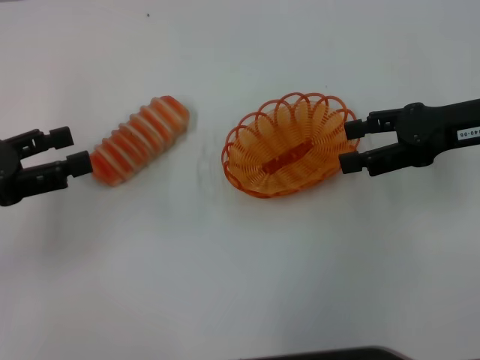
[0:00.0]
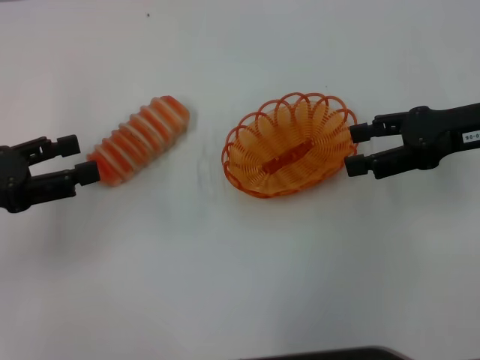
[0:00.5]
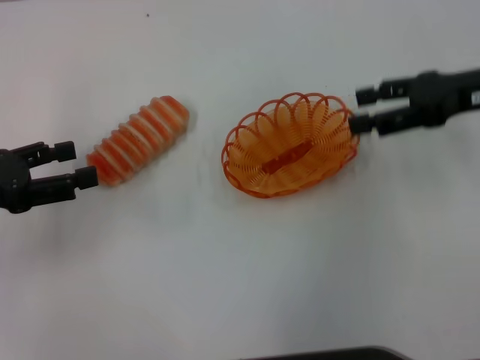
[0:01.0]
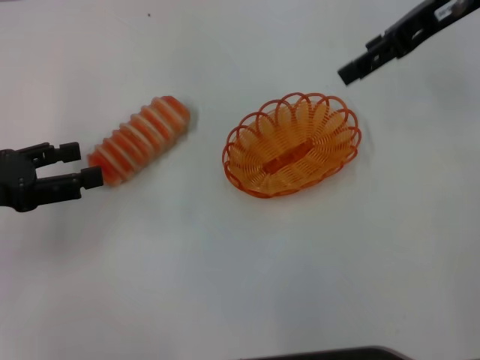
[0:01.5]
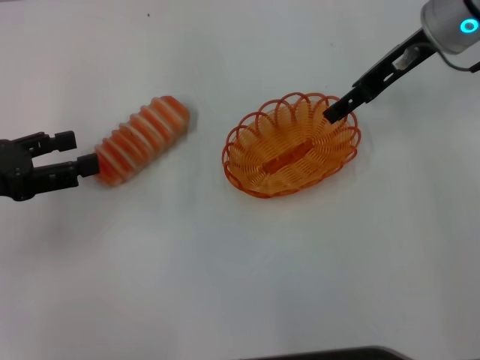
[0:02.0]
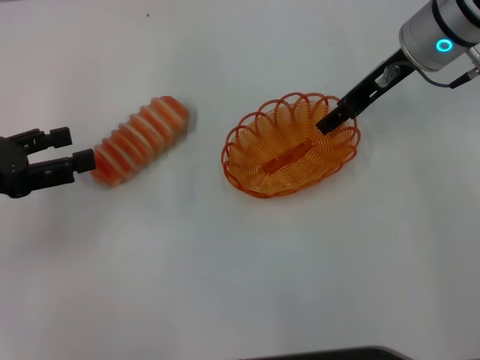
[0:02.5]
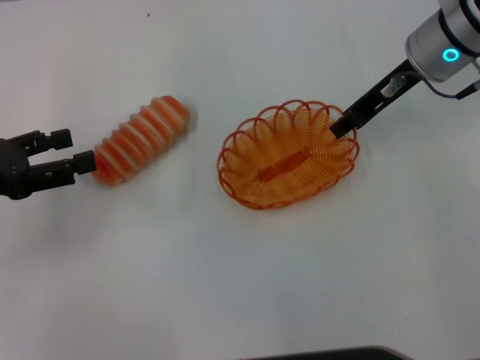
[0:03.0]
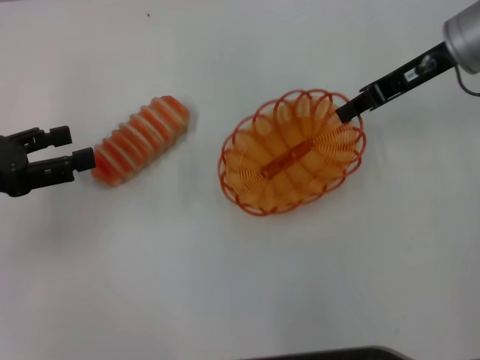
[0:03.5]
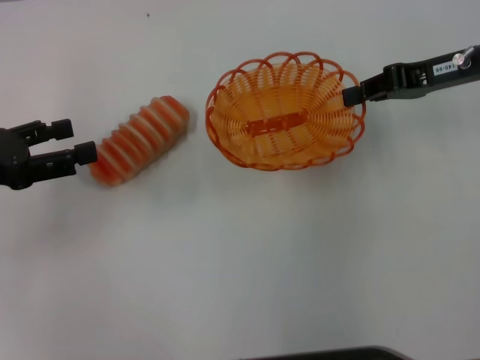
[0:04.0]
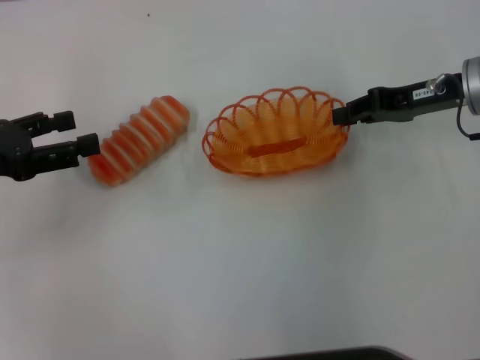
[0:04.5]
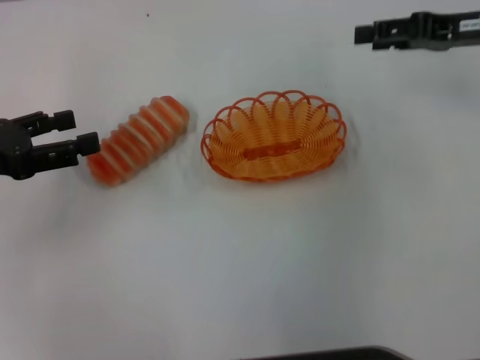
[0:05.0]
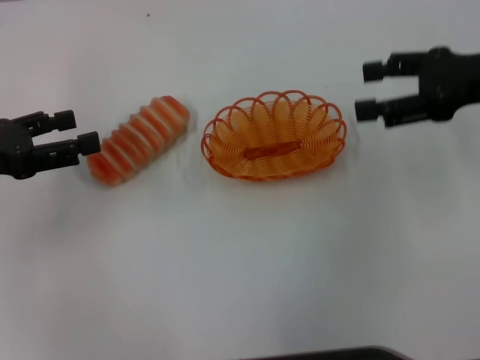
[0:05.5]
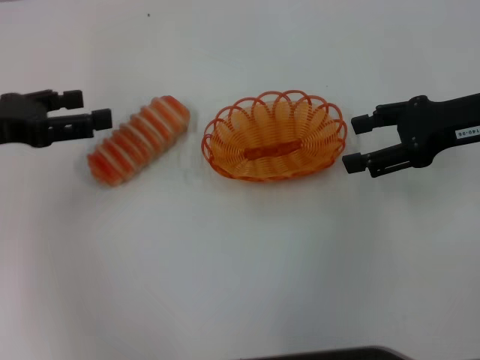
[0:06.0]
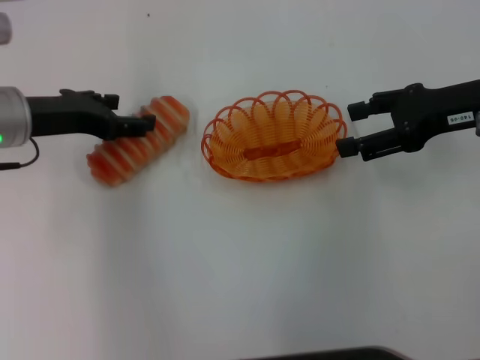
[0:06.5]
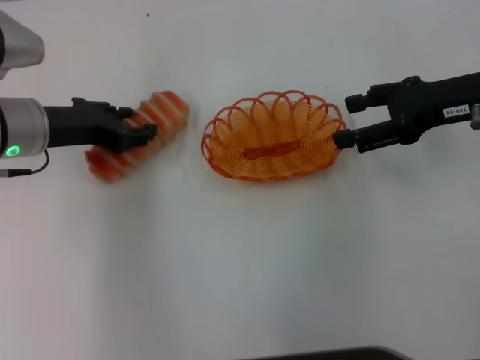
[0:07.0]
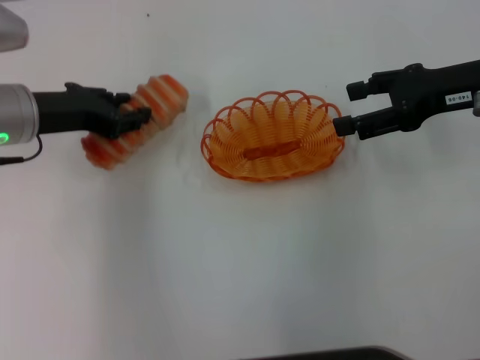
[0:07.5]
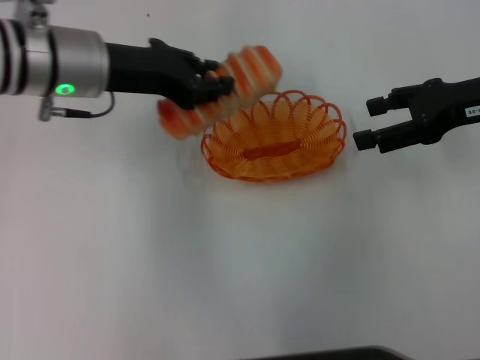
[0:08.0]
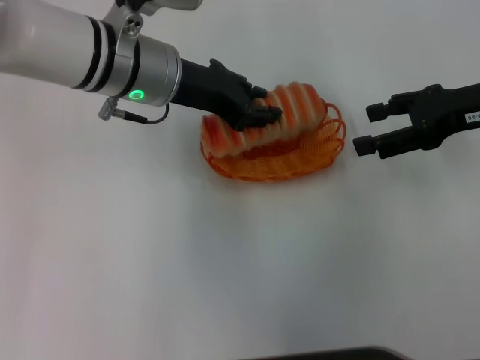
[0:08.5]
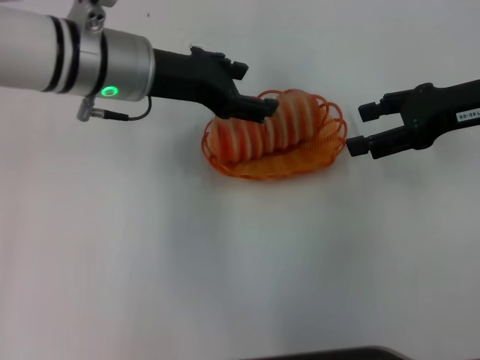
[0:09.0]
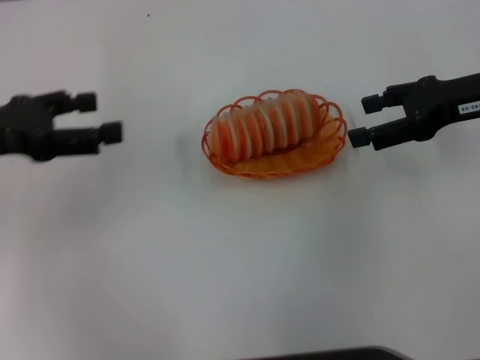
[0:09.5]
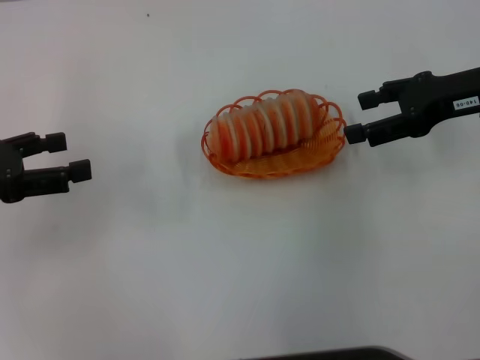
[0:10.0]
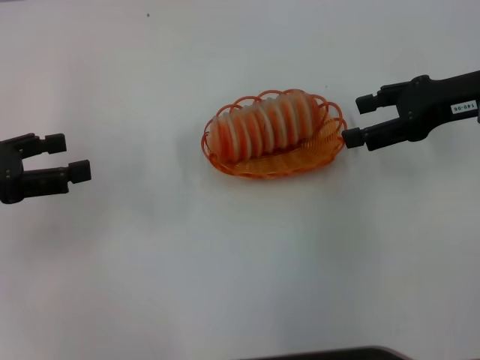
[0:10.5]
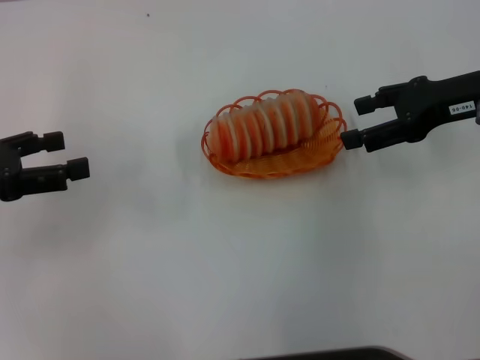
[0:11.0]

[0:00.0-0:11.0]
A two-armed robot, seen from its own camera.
Step, 0:00.0 to 0:03.0: Pick up the basket with the right gripper.
Step, 0:04.0 to 0:06.0: Place the basket in the center of view with the right gripper.
Step, 0:06.5 to 0:07.5: Pick up the long bread with the left gripper.
Step, 0:08.0 to 0:09.0: Place the long bread into the basket with the left gripper.
0:00.0 to 0:02.0: The right gripper is displaced forward and to the left by about 10 cm.
0:02.0 to 0:03.5: The right gripper closes up.
0:03.5 to 0:05.5: The right gripper moves backward and to the right, approximately 10 cm, and opens up.
0:05.5 to 0:07.5: The left gripper goes about 10 cm to the right and forward, and closes up.
0:07.5 to 0:09.0: The left gripper moves to the right, some 10 cm, and opens up.
0:09.0 to 0:11.0: The left gripper shifts roughly 25 cm to the left and backward.

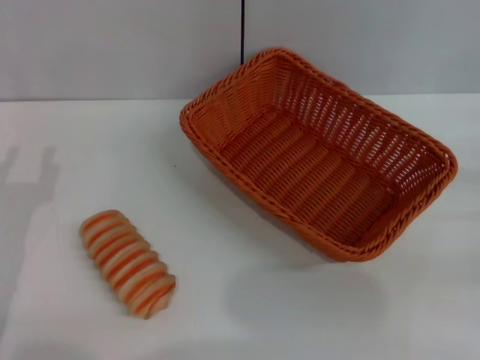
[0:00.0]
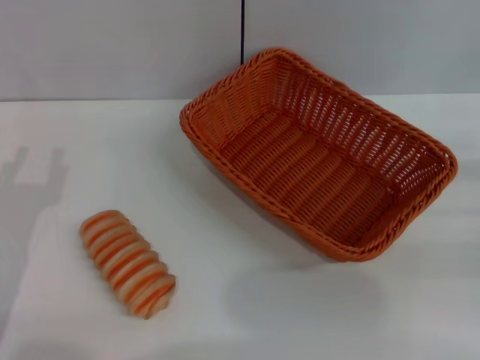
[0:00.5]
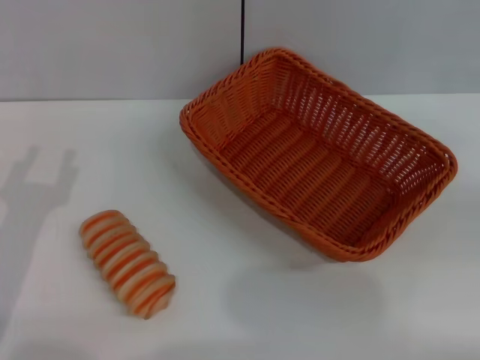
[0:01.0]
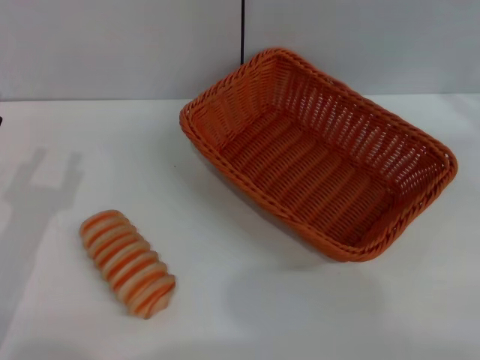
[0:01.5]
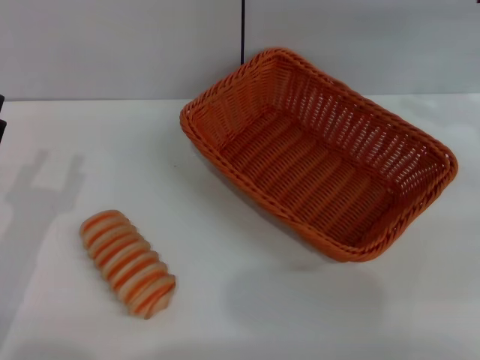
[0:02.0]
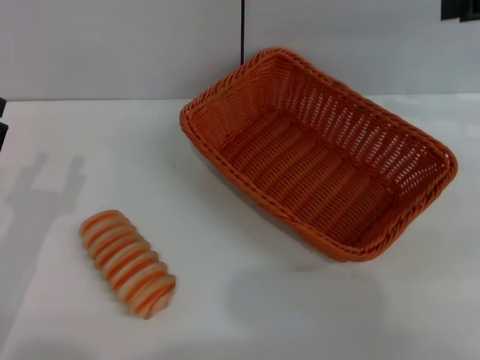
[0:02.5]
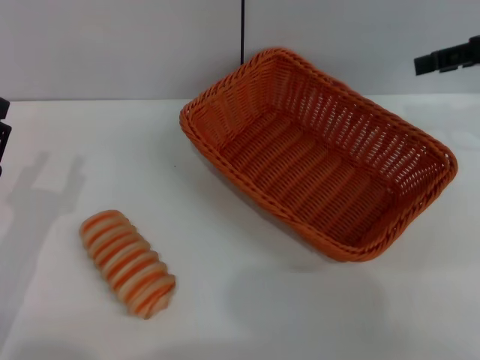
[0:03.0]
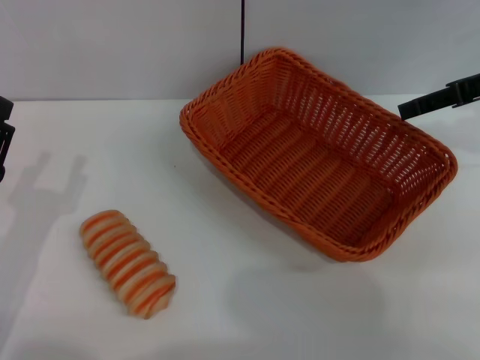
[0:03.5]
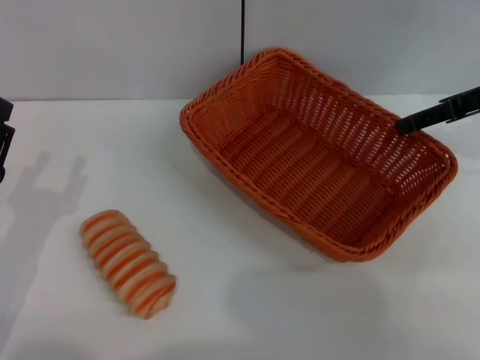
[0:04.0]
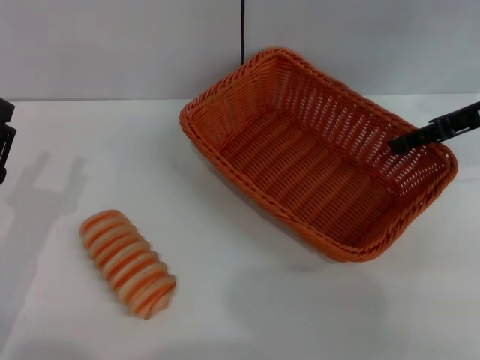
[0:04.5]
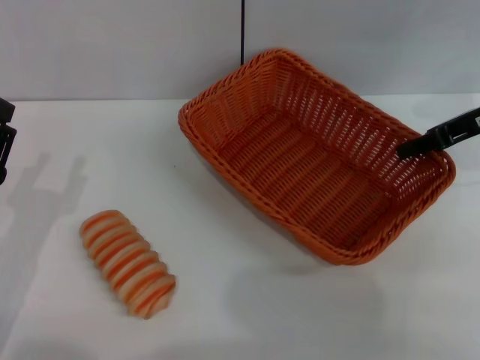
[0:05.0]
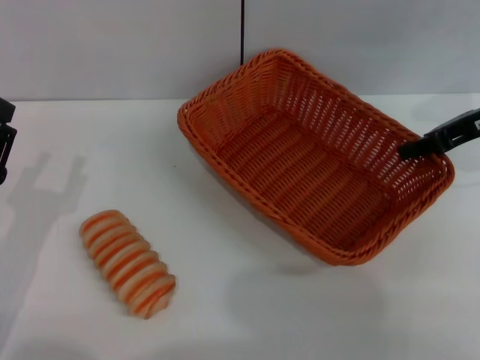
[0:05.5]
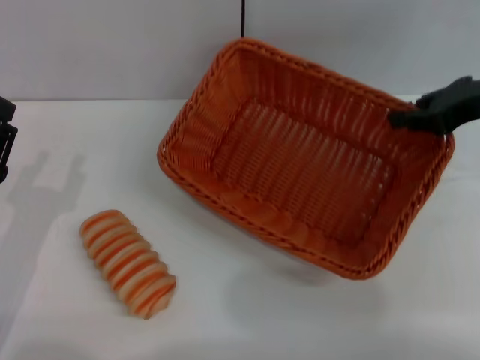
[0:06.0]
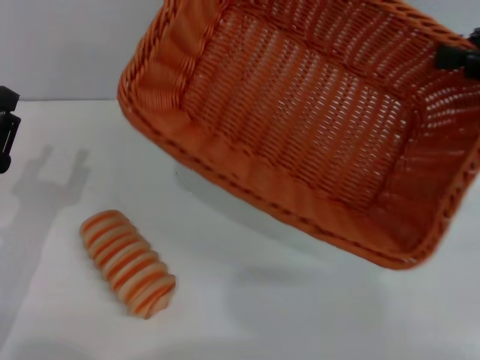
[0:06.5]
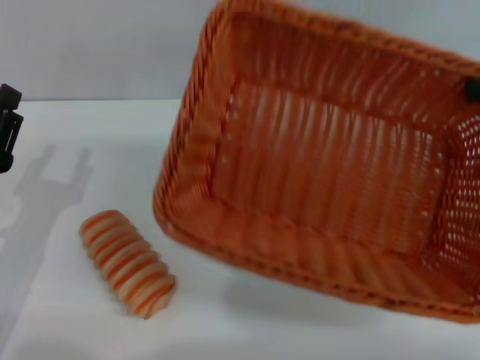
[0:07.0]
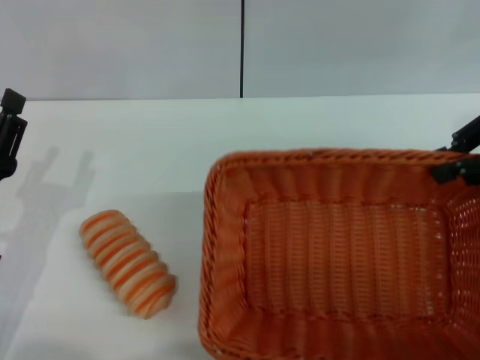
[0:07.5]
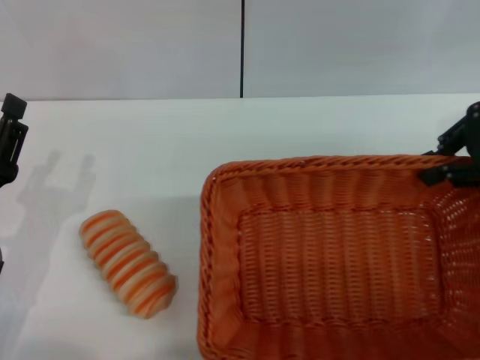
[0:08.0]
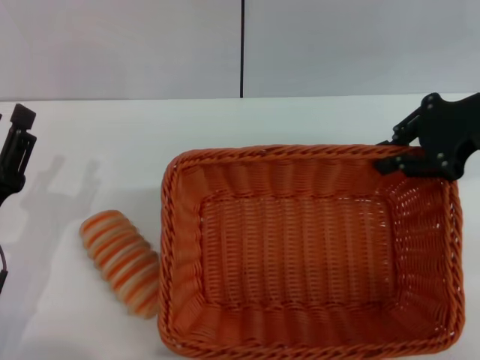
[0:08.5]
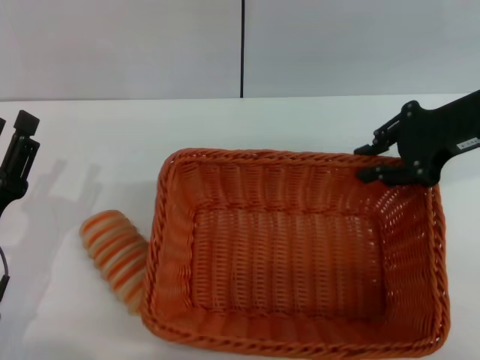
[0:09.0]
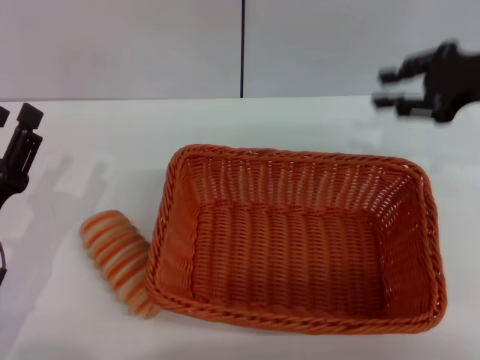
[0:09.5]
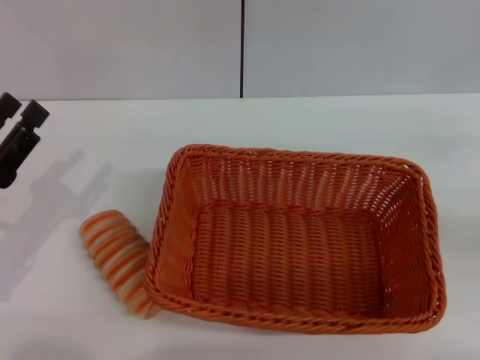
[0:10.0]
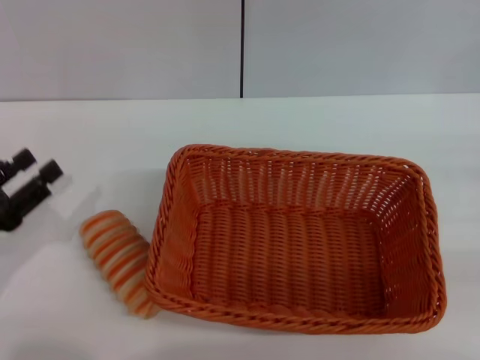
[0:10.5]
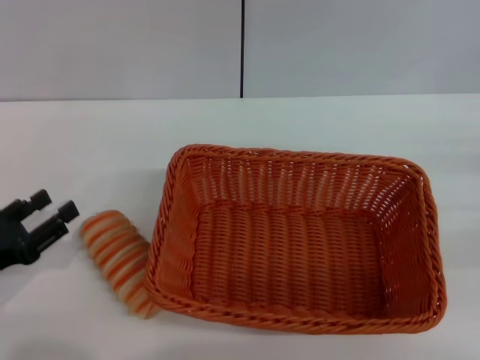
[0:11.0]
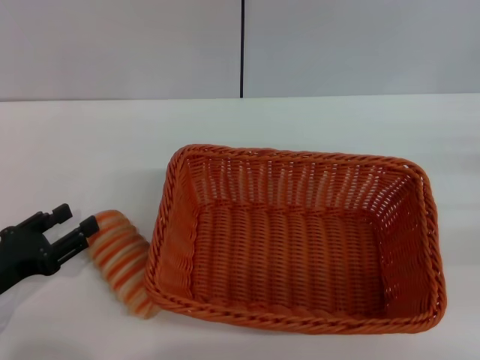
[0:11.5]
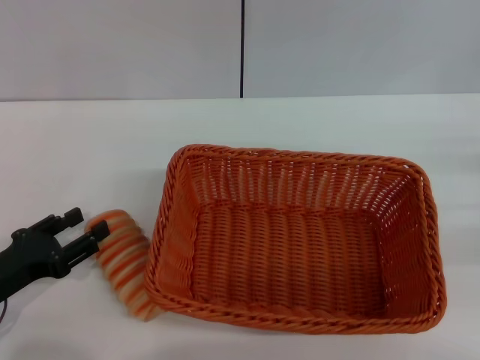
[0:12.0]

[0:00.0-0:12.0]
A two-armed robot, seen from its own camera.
Step, 0:00.0 to 0:06.0: Pick up the light basket with the right gripper.
Step, 0:06.5 to 0:09.5: Place the light basket in the center of view with the right gripper.
0:00.0 to 0:02.0: The right gripper moves upward and forward, approximately 25 cm.
0:02.0 to 0:04.0: The right gripper is displaced downward and to the left by approximately 10 cm, and opens up.
0:04.0 to 0:06.0: The right gripper closes up.
0:08.0 to 0:10.0: The right gripper goes about 15 cm to the right, downward and backward, and opens its fingers.

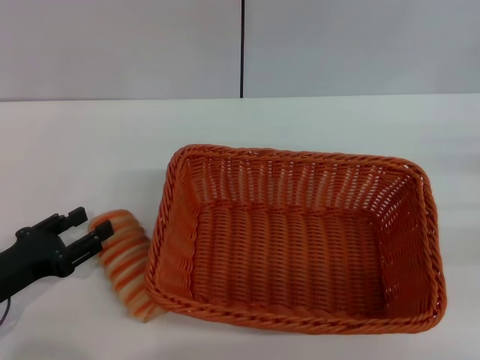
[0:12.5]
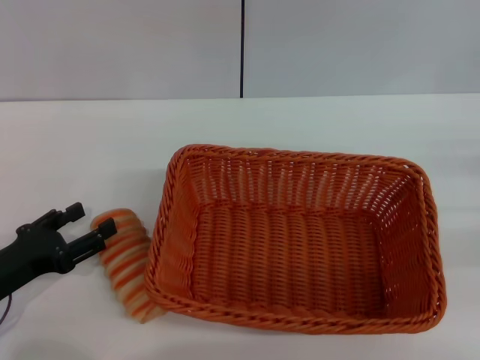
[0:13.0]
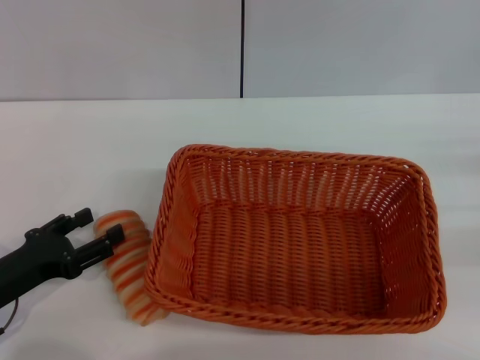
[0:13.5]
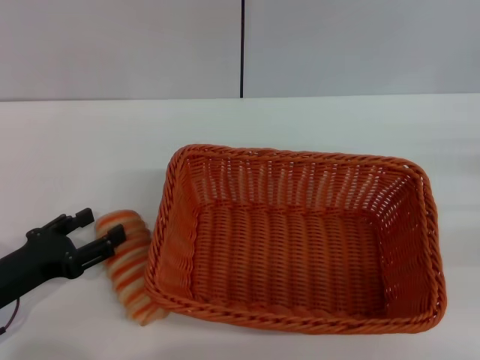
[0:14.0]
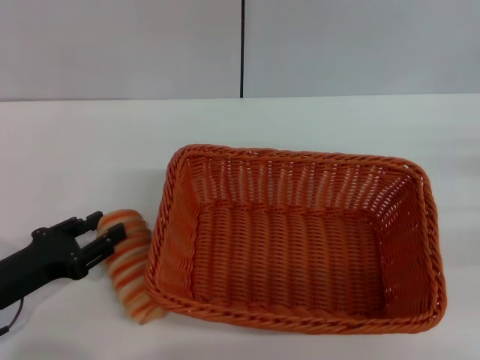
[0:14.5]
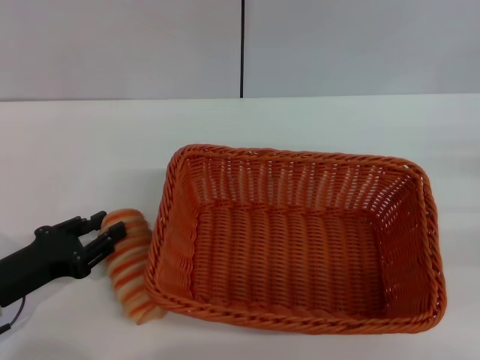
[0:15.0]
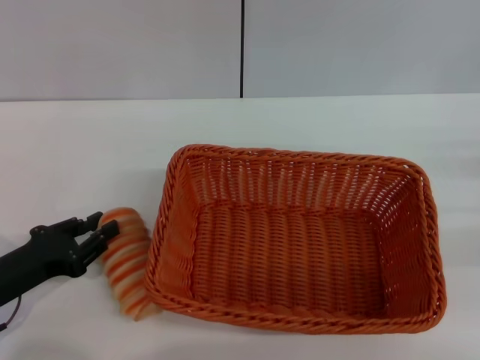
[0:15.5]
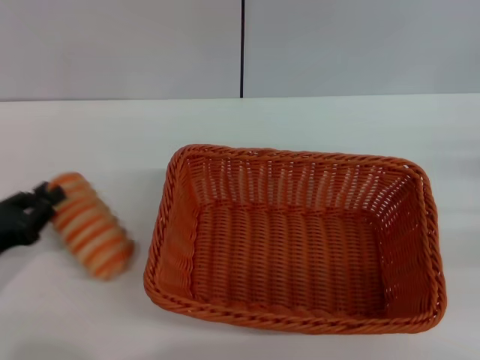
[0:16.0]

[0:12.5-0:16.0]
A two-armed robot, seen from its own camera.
0:12.5 to 0:14.5: The two grippers keep their place.
0:14.5 to 0:16.0: The left gripper closes.
